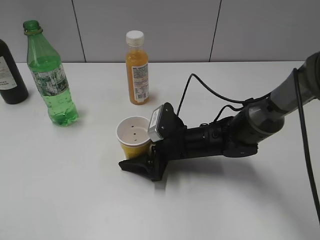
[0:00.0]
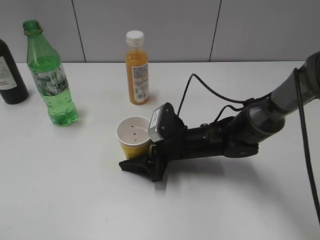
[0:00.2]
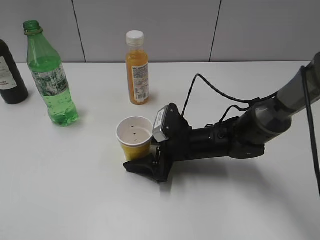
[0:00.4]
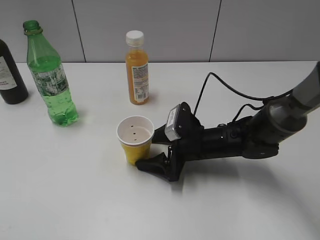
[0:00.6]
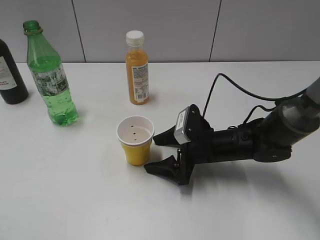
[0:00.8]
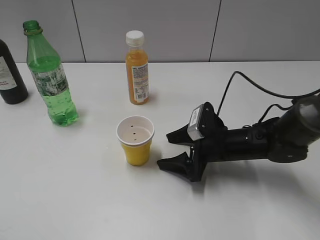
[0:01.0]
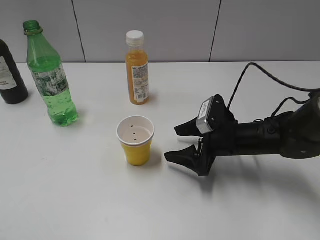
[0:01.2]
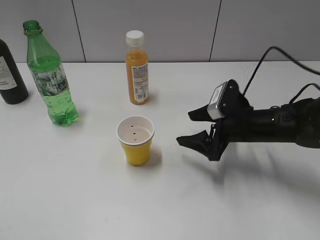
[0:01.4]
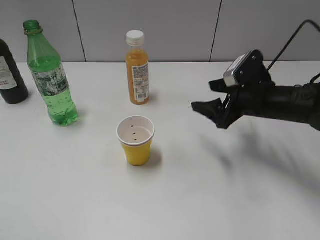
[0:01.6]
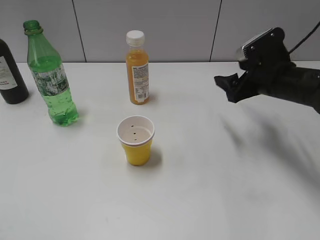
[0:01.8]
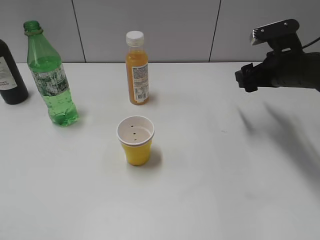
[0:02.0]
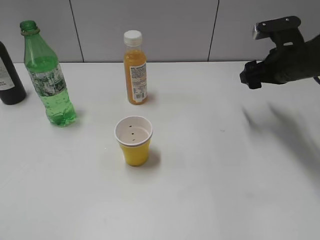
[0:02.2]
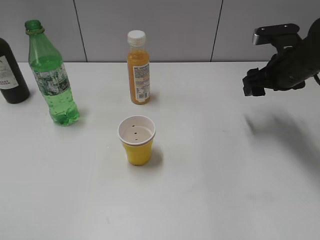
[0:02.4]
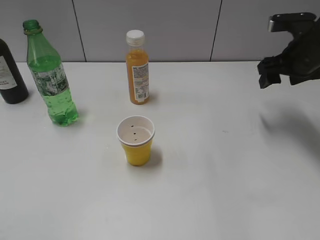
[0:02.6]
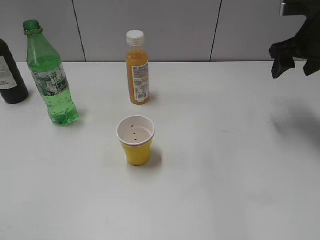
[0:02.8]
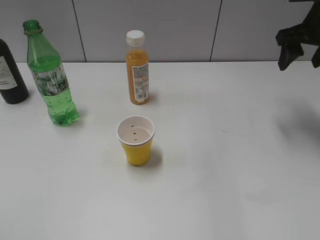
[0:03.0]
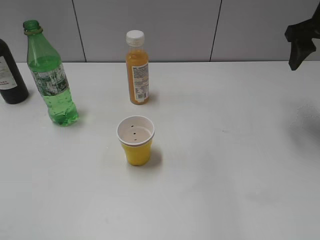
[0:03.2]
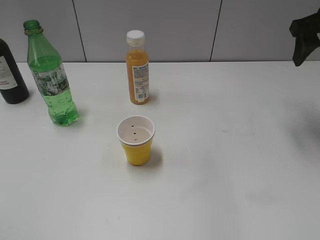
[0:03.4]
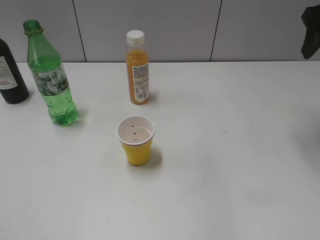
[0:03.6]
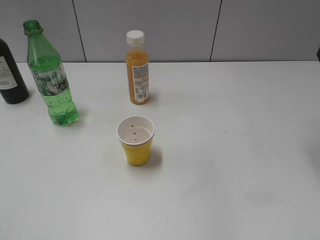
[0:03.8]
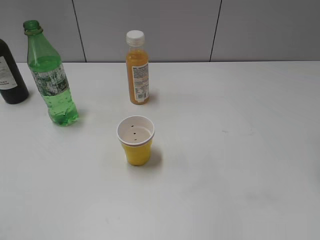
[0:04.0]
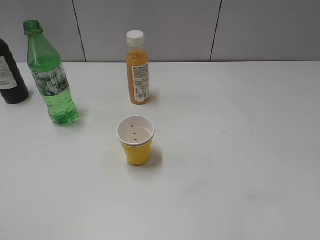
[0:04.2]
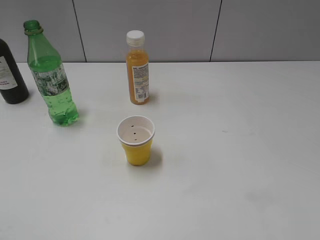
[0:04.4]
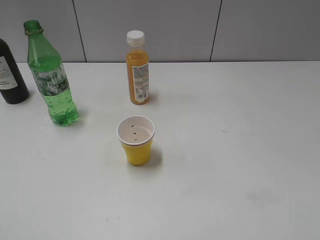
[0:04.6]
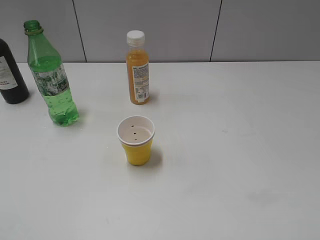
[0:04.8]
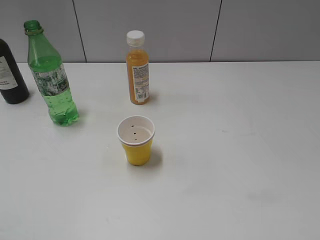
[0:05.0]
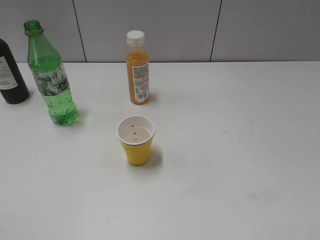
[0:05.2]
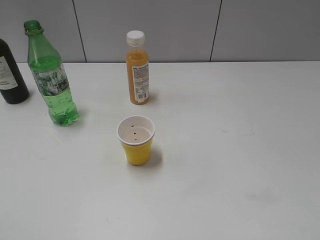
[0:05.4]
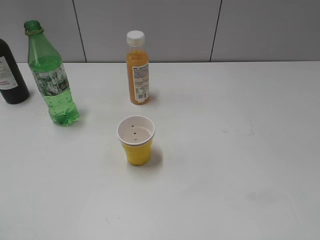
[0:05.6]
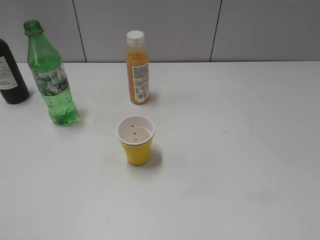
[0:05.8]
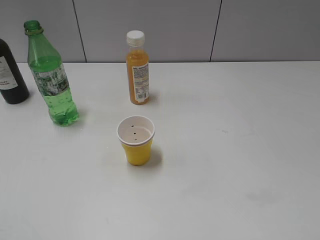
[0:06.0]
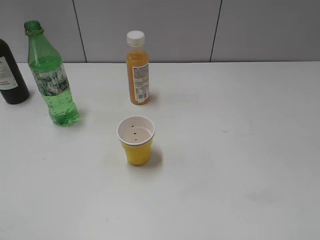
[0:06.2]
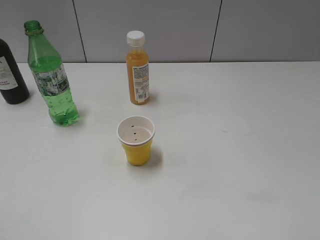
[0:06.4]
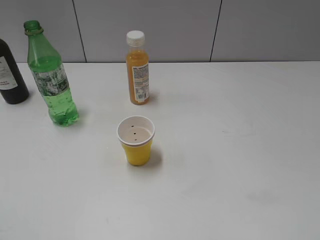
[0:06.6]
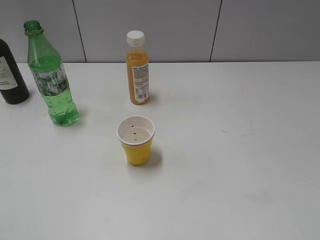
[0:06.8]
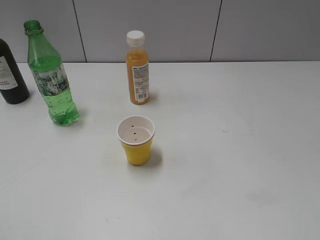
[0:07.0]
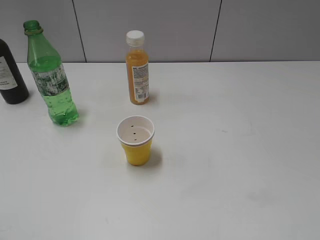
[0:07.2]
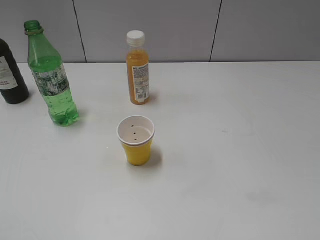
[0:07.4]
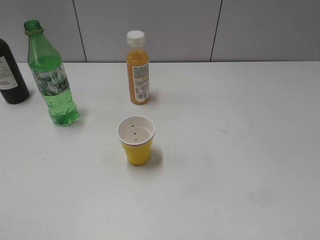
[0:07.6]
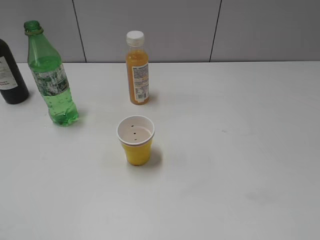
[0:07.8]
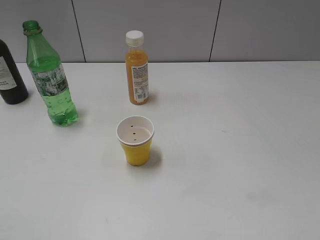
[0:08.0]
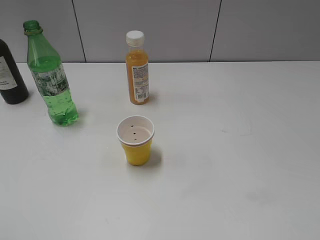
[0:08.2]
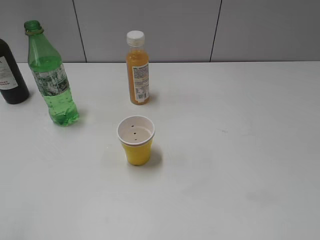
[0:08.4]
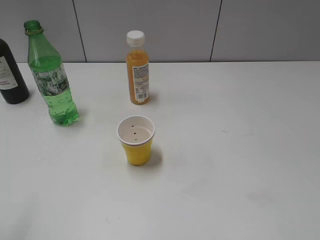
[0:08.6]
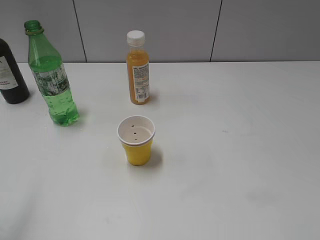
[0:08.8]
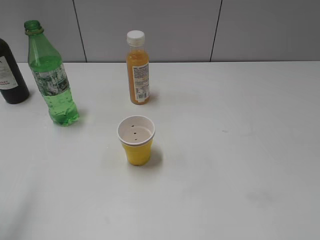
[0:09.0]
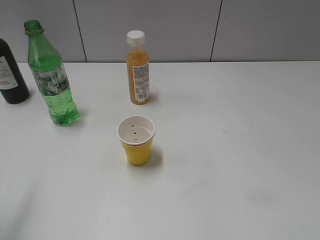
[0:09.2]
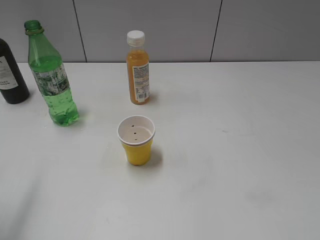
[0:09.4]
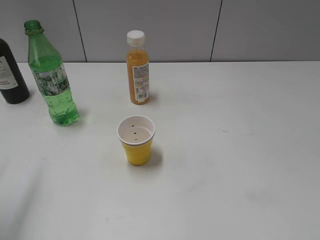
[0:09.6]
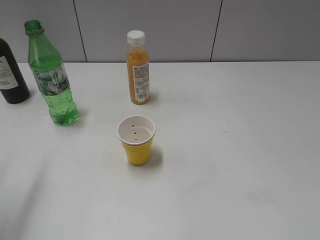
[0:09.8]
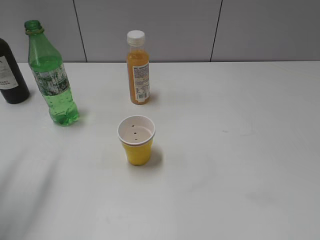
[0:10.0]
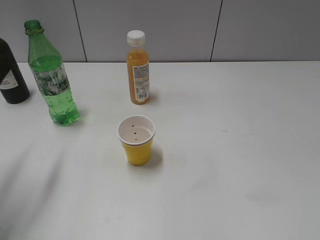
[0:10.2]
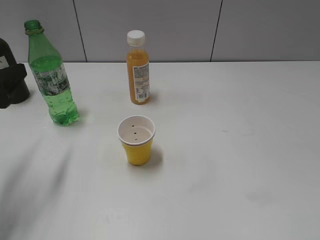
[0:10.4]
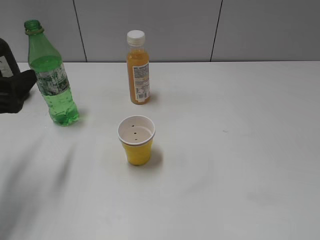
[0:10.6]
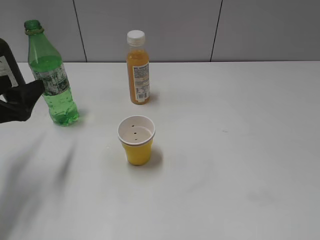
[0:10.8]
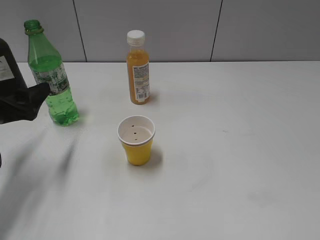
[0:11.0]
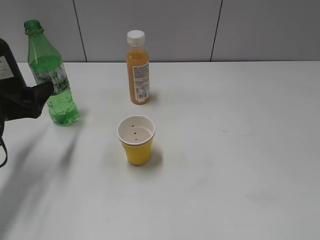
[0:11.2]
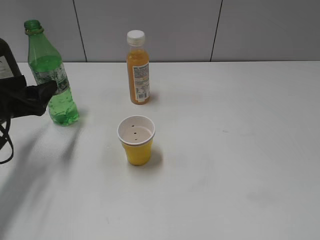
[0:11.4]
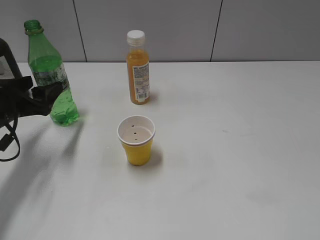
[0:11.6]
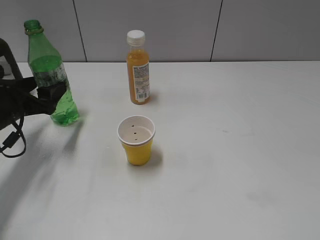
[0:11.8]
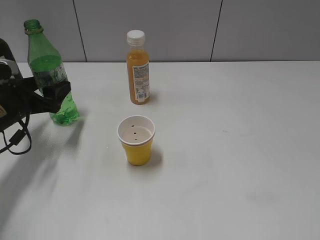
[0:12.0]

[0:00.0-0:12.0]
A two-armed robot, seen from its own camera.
0:00.0 to 0:01.6: The right gripper moves to the right and upward, some 15 cm.
0:01.6 to 0:03.0: The right gripper goes roughly 15 cm upward, to the right and forward.
0:03.0 to 0:04.4: The right gripper shifts approximately 20 cm backward.
0:09.0 to 0:10.4: The left gripper moves forward and downward, roughly 15 cm.
0:10.4 to 0:12.0: The left gripper is displaced forward and downward by about 15 cm.

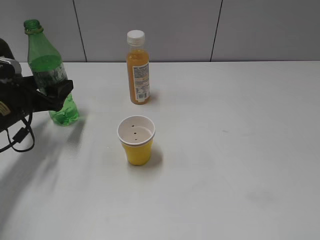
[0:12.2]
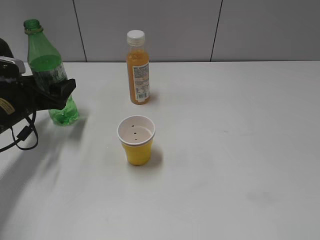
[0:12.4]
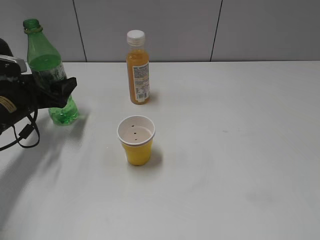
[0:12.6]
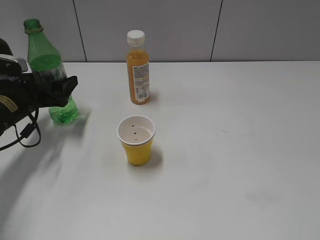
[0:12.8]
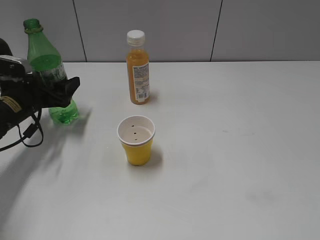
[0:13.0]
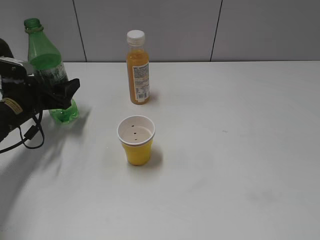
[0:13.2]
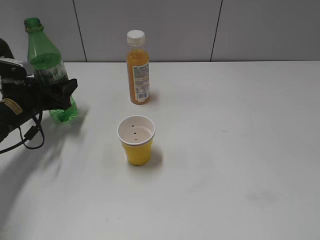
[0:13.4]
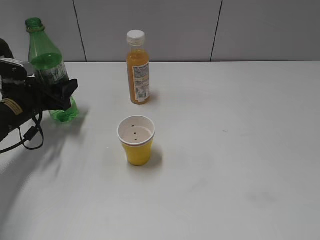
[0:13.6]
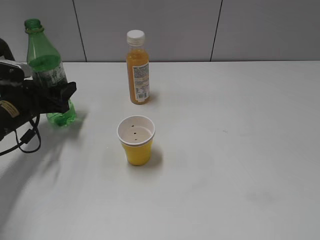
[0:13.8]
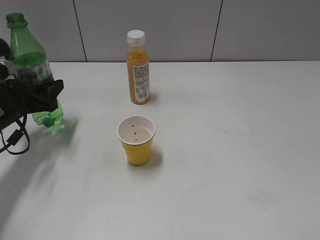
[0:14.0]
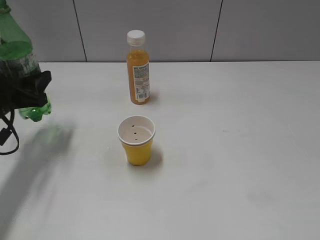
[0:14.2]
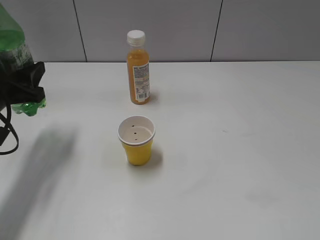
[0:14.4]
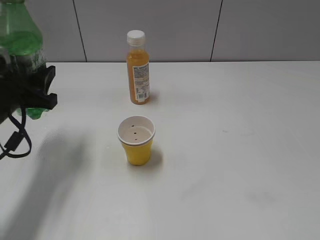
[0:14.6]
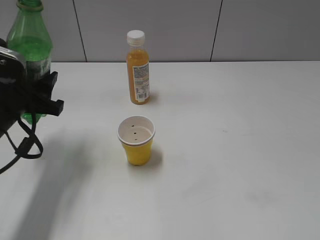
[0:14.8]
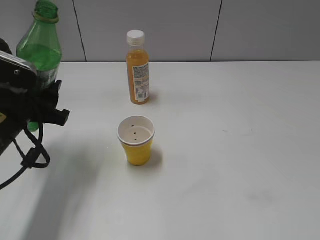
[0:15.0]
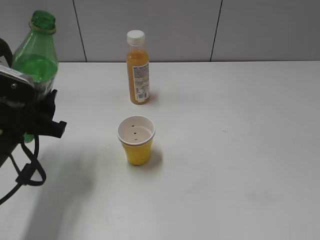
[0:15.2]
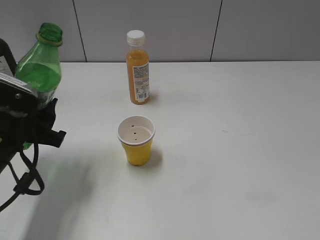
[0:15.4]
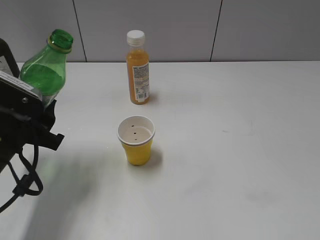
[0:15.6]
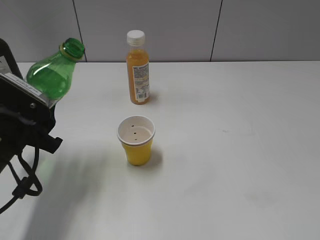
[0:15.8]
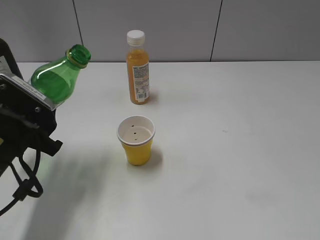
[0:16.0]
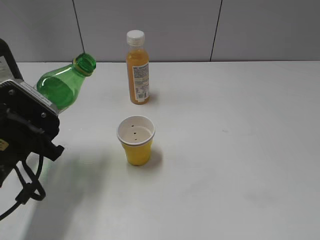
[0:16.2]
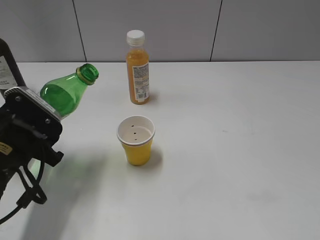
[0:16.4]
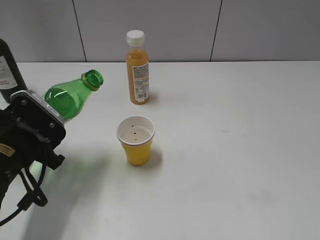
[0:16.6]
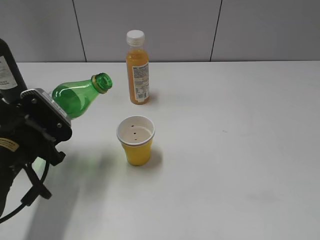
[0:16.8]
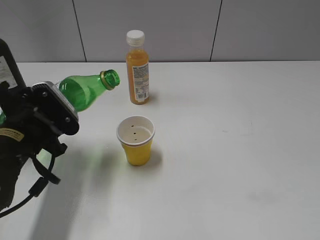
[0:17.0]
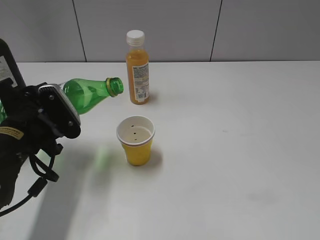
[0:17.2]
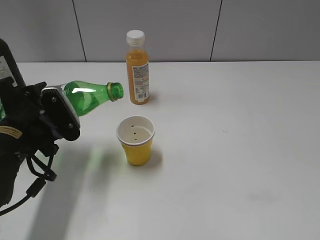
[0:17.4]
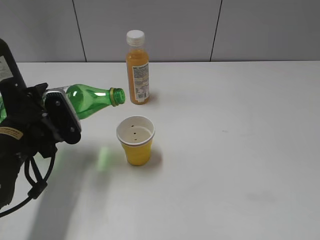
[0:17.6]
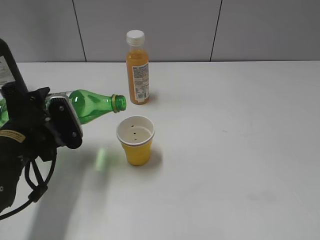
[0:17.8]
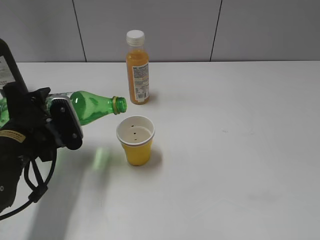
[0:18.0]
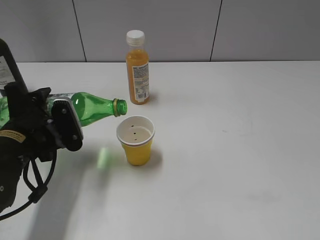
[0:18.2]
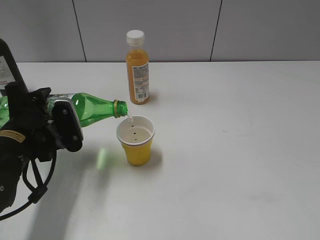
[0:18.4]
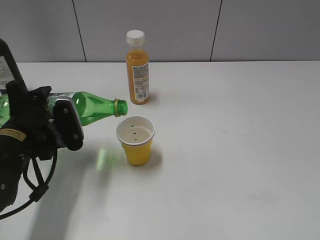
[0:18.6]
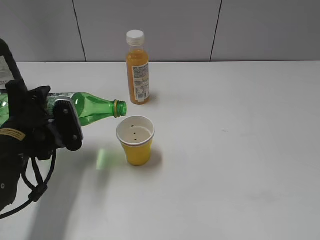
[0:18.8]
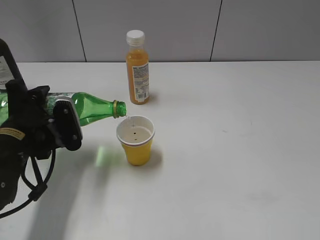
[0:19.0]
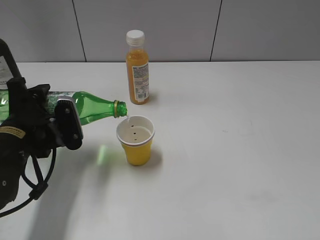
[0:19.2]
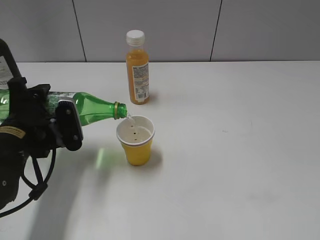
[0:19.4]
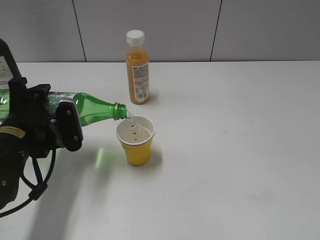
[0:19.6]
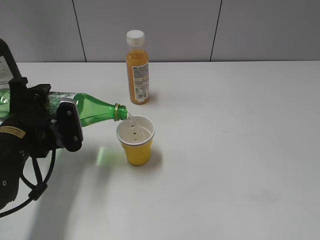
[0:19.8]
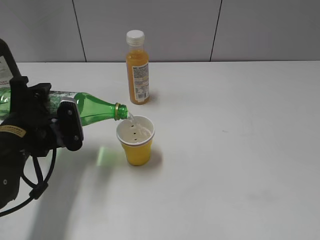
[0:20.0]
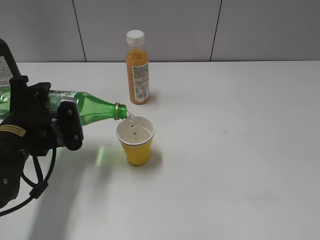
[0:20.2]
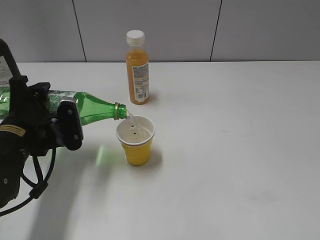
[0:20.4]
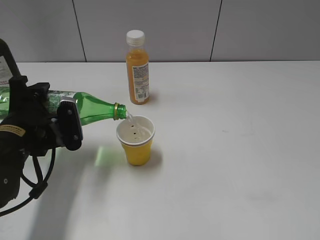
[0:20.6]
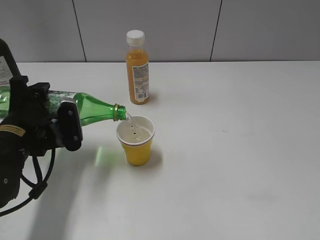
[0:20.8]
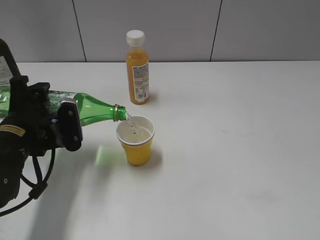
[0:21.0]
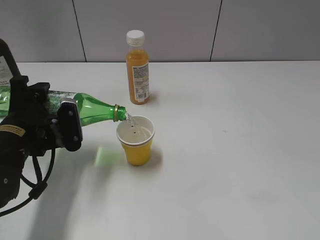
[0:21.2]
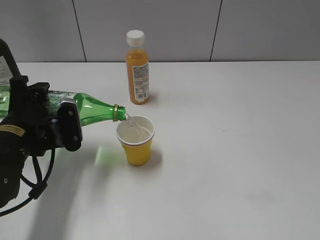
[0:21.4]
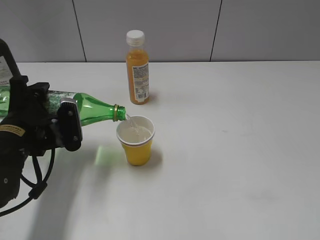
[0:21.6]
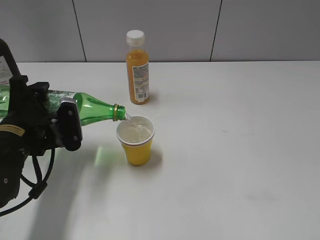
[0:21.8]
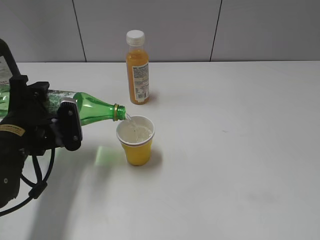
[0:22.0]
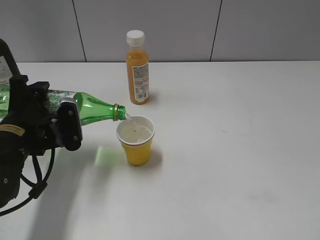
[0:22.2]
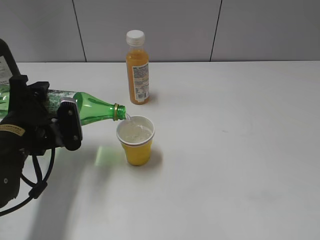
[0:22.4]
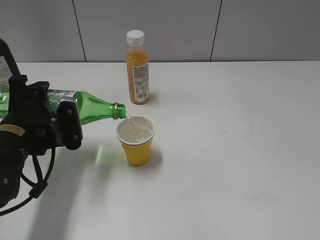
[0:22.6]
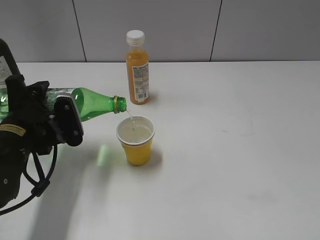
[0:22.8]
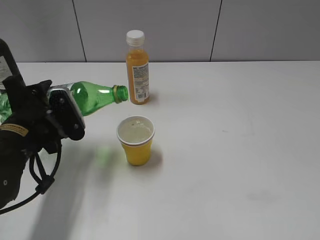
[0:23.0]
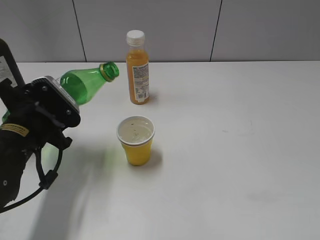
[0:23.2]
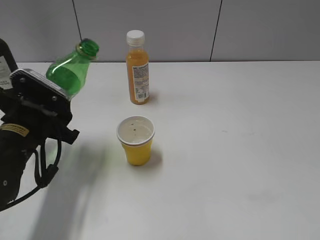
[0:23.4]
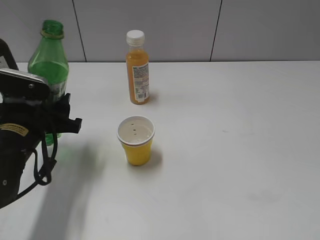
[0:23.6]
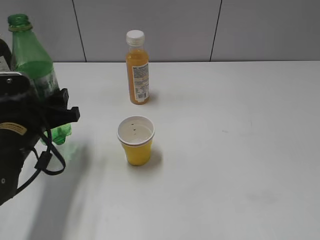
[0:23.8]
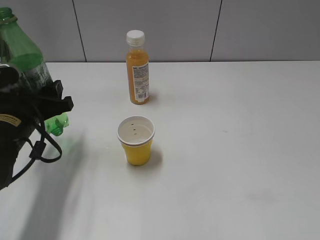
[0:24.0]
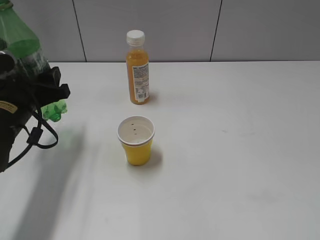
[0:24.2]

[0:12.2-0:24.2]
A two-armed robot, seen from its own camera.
Step, 0:13.6 to 0:23.0: Pour the sprite from bottle to cup with left gripper.
0:12.2 to 0:13.8: The left gripper closes.
0:13.8 to 0:15.2: The left gripper moves backward, upward and to the right, roughly 15 cm.
0:18.2 to 0:19.8: The grippers make only small movements.
0:19.8 to 0:22.6: Both grippers stay put.
